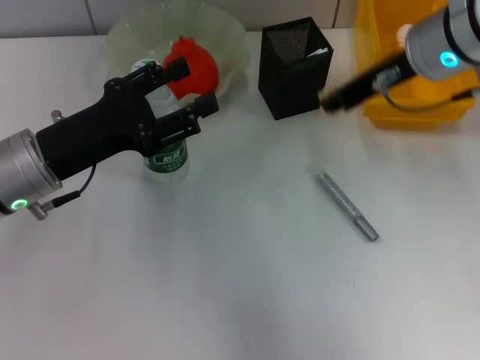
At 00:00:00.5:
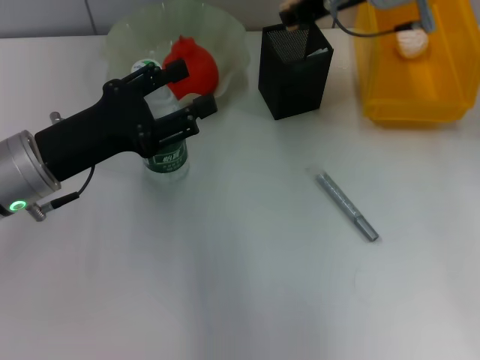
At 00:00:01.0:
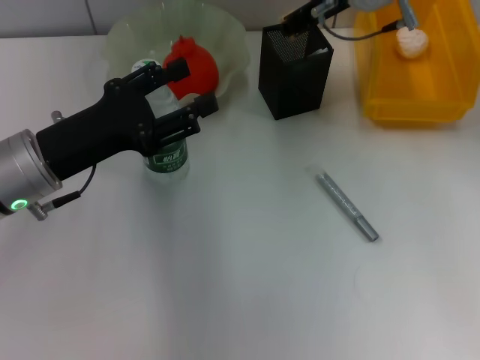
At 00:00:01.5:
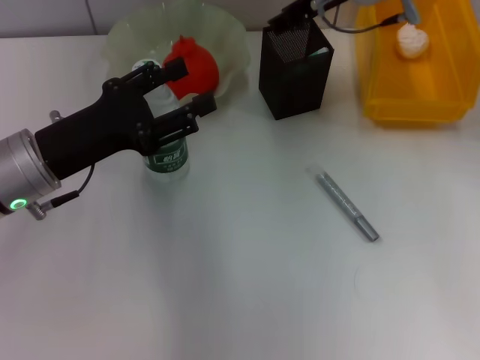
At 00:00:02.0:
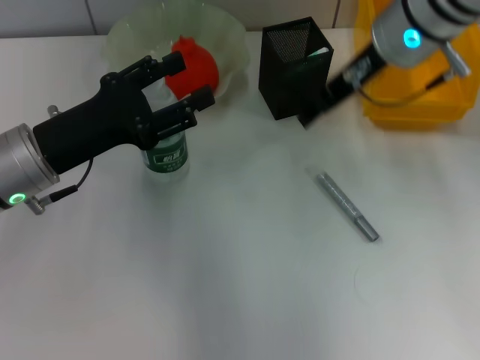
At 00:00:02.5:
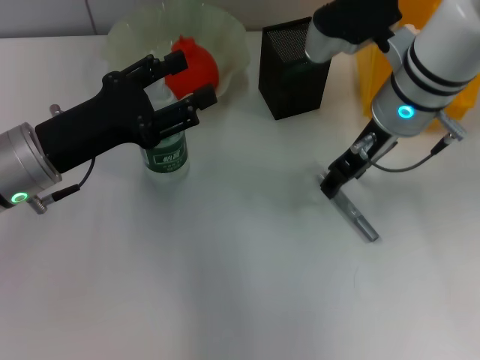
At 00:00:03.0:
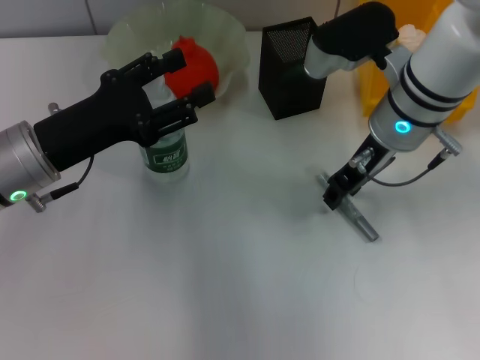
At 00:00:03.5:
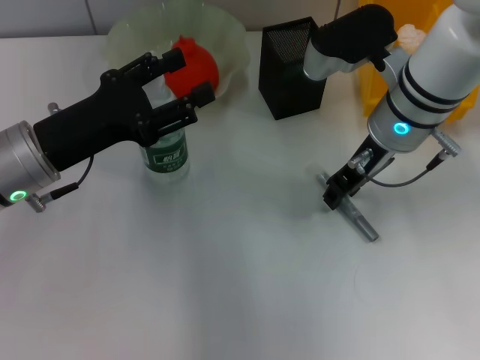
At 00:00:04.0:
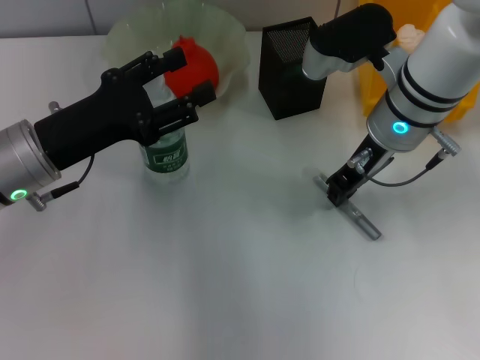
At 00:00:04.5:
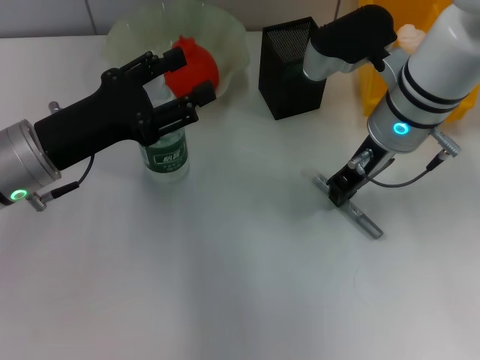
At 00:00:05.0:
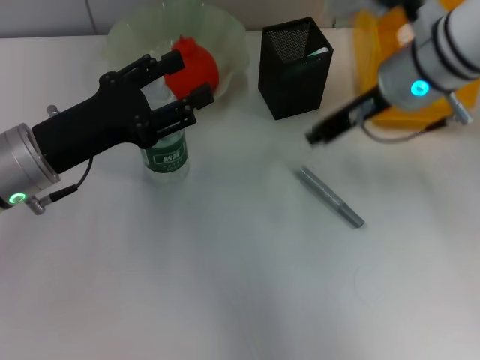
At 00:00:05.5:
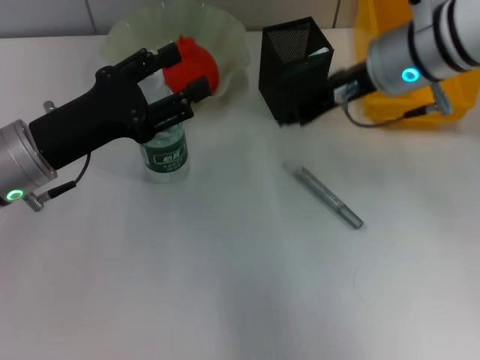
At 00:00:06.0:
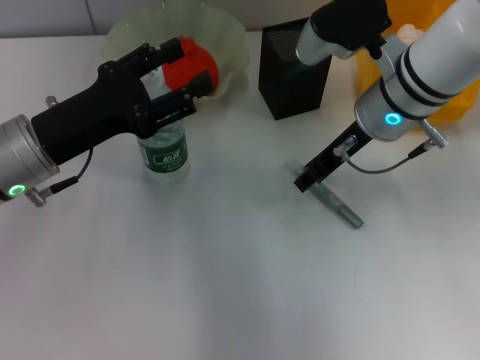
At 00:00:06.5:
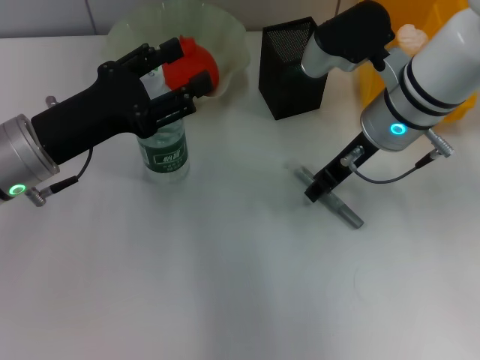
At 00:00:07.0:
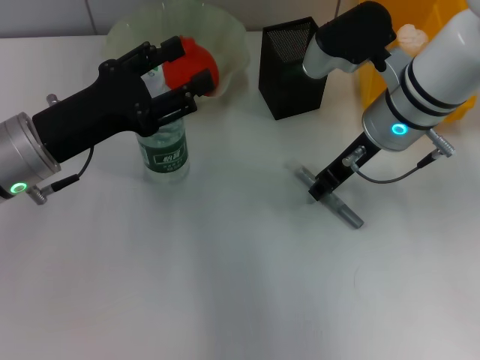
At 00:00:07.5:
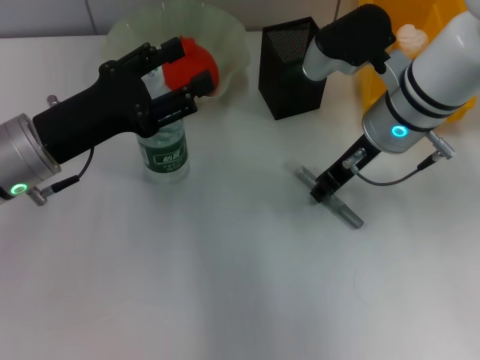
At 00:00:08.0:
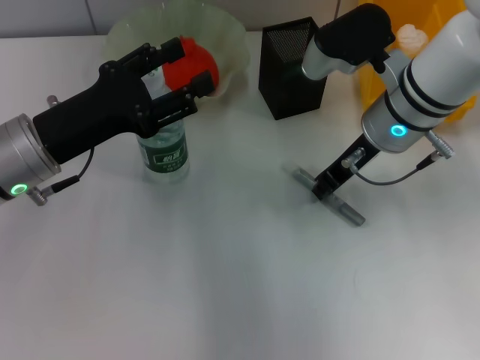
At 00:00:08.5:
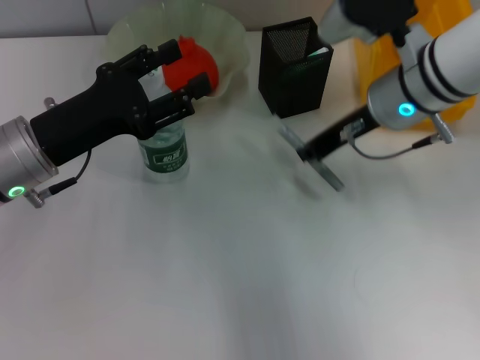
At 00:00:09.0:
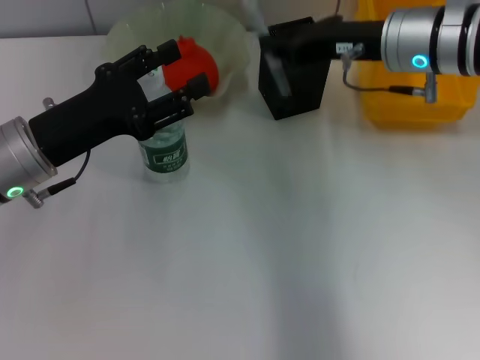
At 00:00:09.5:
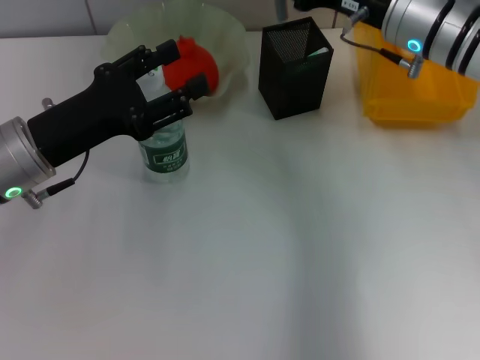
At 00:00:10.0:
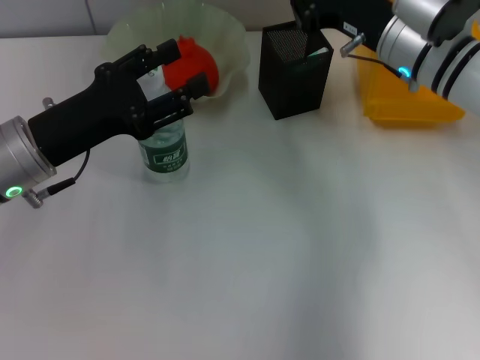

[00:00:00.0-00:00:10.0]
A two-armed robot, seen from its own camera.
Step, 00:00:00.0 to 00:00:01.0: Put the eraser into the pen holder with the right hand.
Step, 00:00:01.5 to 00:00:08.0: Grab the gray glue with the right hand.
00:00:00.0 to 00:00:02.0: The right gripper opens up.
00:00:02.0 to 00:00:04.0: The right gripper travels downward by about 5 cm, and closes up.
00:00:06.0 to 00:00:08.0: The right gripper closes.

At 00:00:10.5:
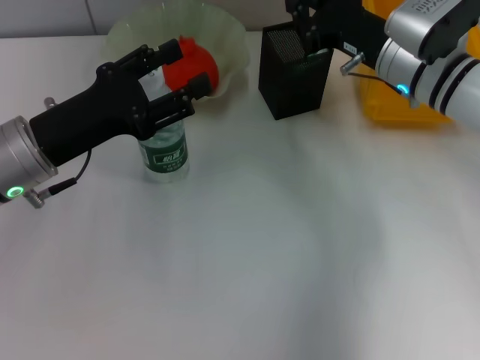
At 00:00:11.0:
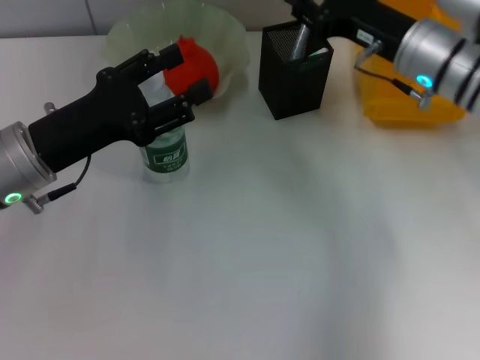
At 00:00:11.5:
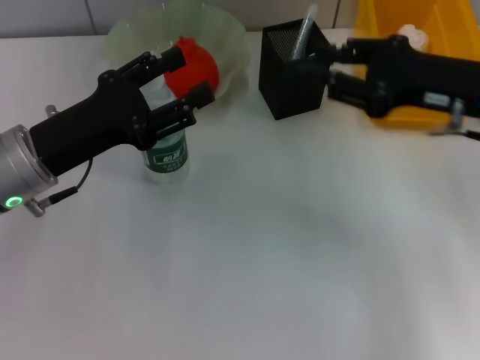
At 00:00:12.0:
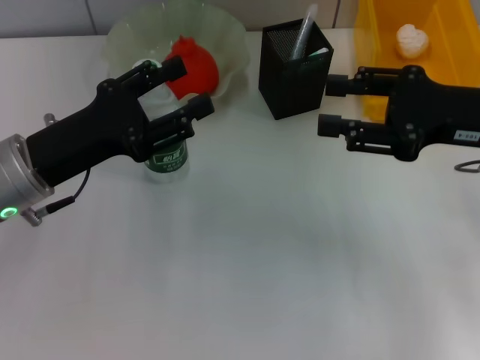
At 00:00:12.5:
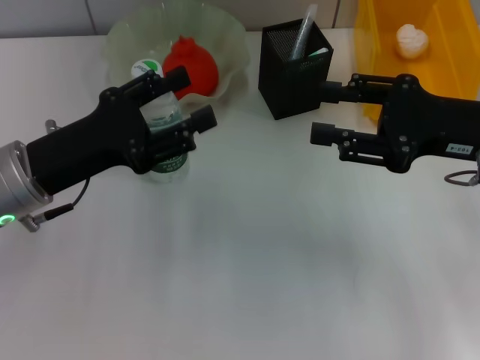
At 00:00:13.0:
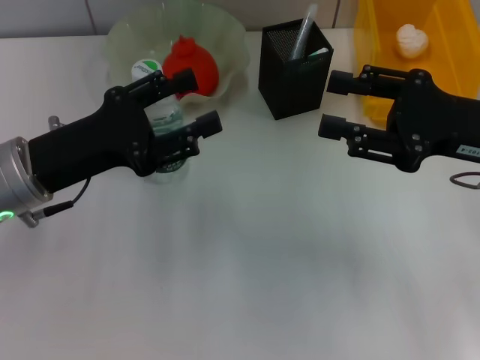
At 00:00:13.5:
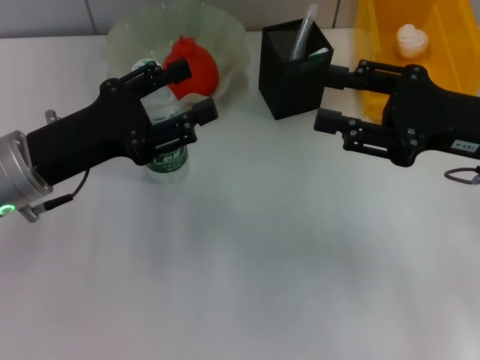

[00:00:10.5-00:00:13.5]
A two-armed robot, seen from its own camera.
00:00:10.5 to 00:00:12.0: The right gripper moves backward, to the right and upward, about 15 cm, and opens its fingers.
00:00:12.0 to 00:00:13.5: The grippers move only a little.

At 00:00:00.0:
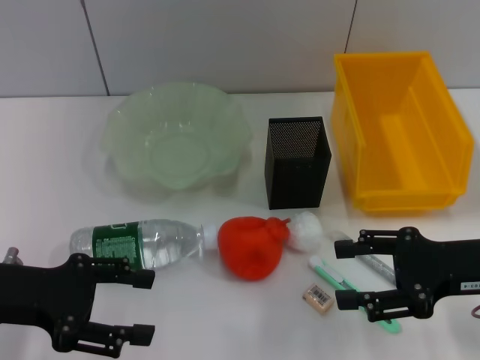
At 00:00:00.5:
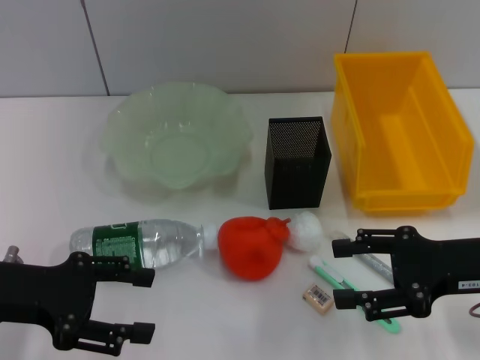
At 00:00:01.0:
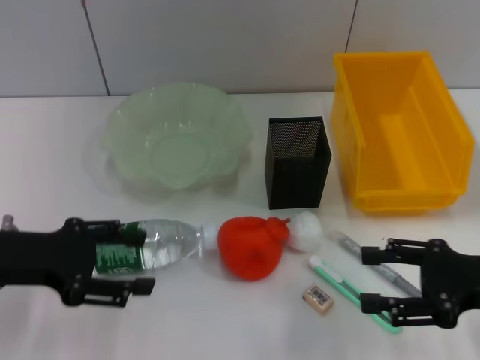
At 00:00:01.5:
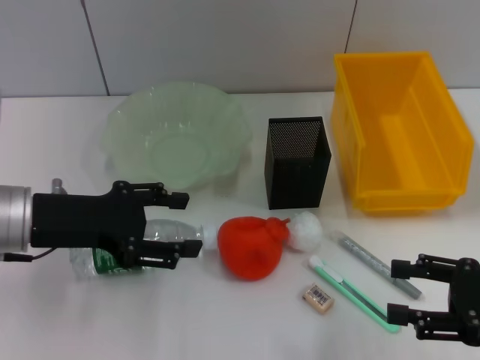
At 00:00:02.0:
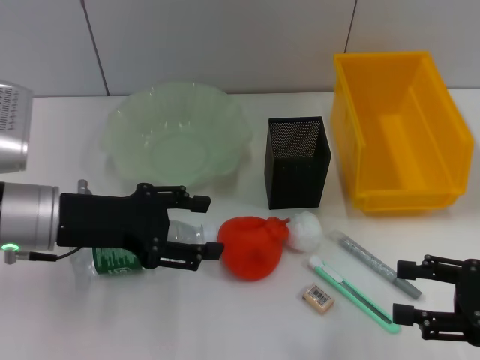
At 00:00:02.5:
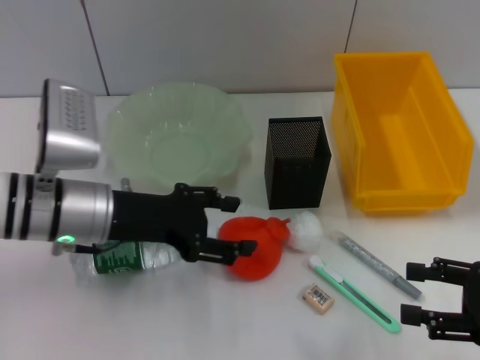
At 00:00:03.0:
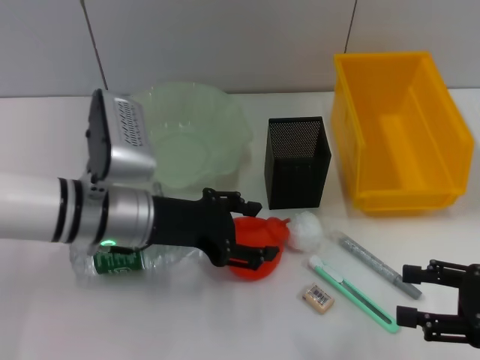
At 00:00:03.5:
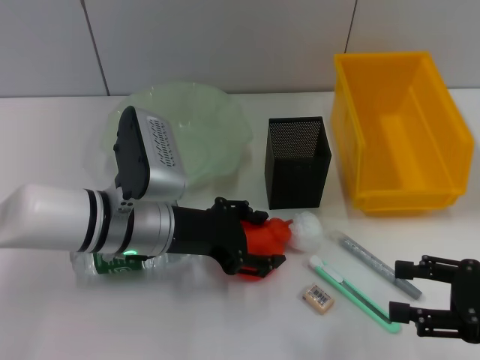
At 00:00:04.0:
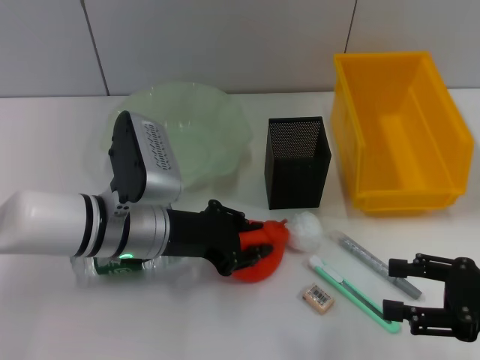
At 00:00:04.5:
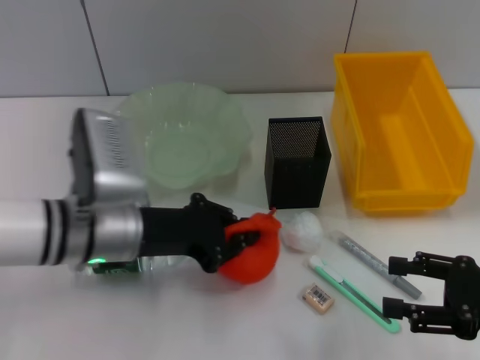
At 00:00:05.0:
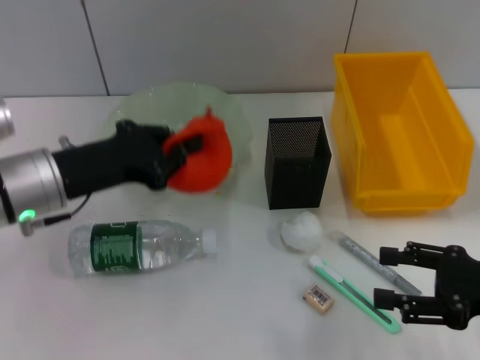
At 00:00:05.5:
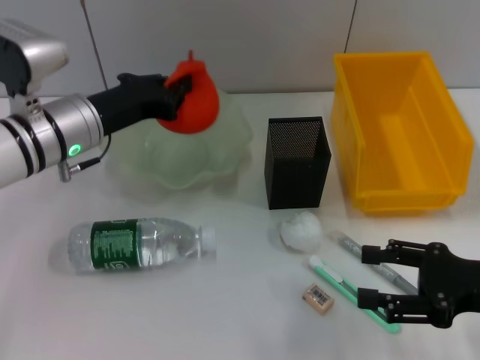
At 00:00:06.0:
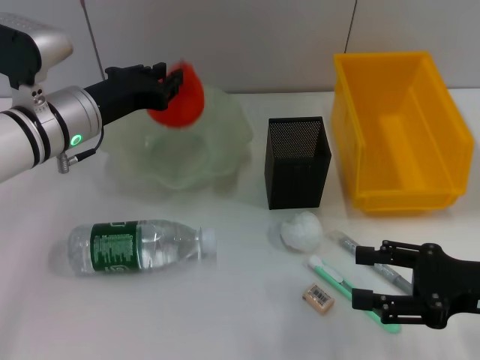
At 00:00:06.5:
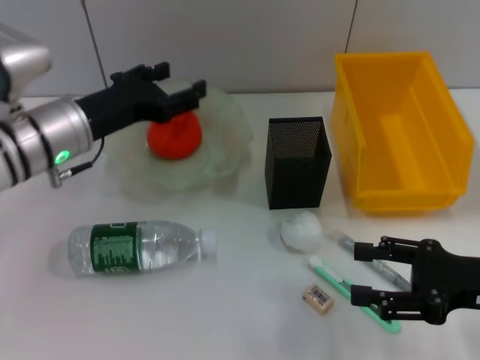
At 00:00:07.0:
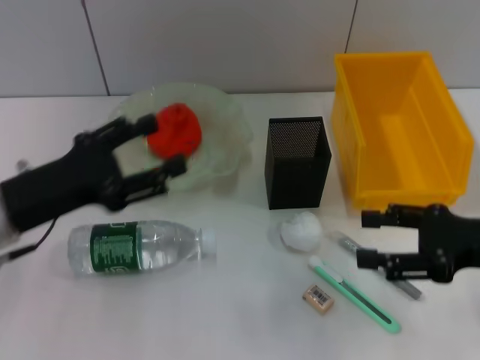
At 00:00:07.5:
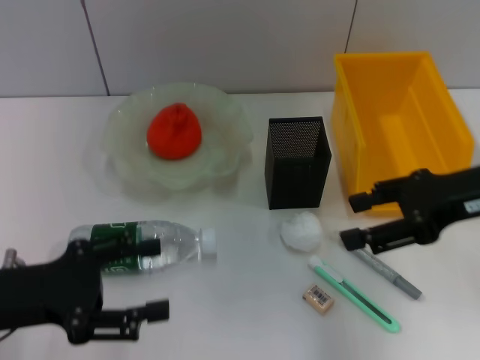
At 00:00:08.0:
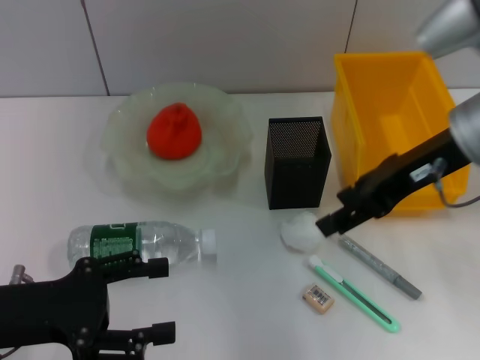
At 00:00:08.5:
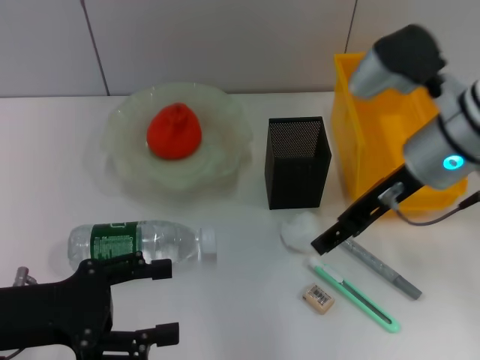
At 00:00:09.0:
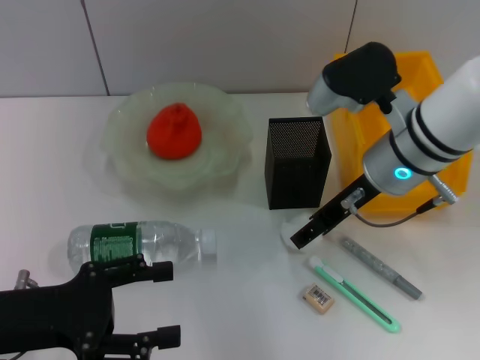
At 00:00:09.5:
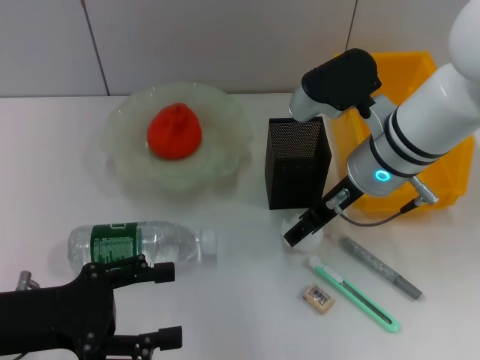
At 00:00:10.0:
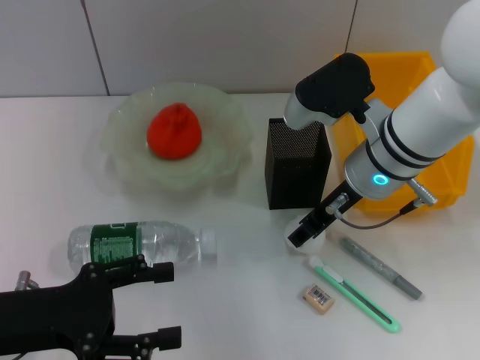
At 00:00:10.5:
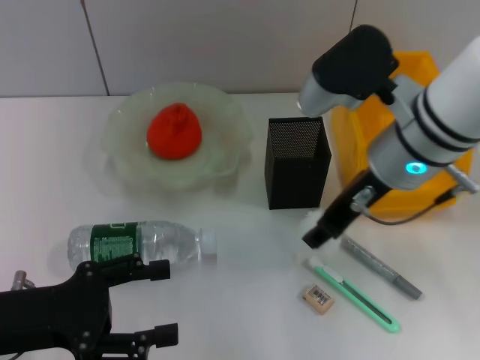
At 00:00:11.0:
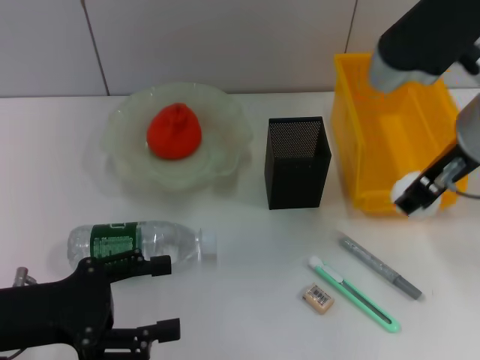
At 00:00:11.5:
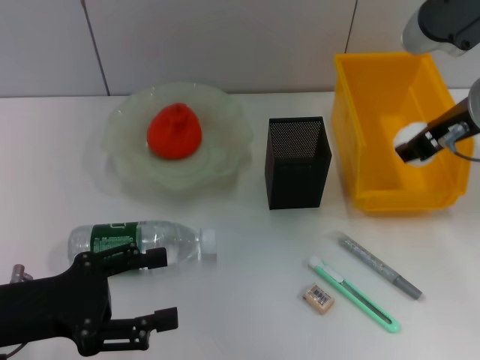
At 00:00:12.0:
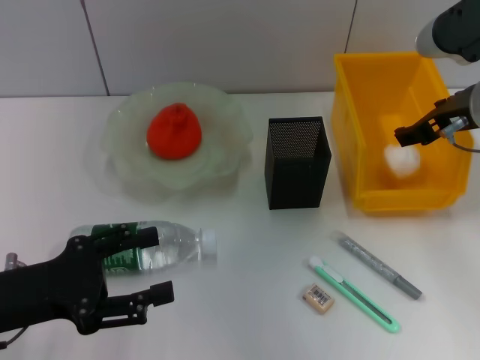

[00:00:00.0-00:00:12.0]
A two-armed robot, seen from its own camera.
Step, 00:00:00.0 to 00:00:04.0: Grab the orange with the left hand.
Step, 00:00:04.5 to 00:00:06.0: Place the orange into the fruit bowl with the left hand.
Step, 00:00:06.5 to 00:00:10.0: Grab the paper ball with the right hand.
00:00:00.0 to 00:00:02.0: The left gripper heads to the right and forward, covering approximately 10 cm. The right gripper is displaced to the right by roughly 5 cm.
00:00:02.0 to 00:00:04.0: The left gripper is displaced to the right by about 10 cm, and closes.
00:00:04.0 to 00:00:06.0: The left gripper shifts about 10 cm forward and to the left, and closes.
00:00:06.0 to 00:00:08.0: The left gripper moves backward and to the left, about 20 cm, and opens up; the right gripper goes approximately 20 cm upward, forward and to the left.
00:00:08.0 to 00:00:10.0: The right gripper heads downward and to the left, covering roughly 10 cm.
00:00:10.0 to 00:00:12.0: The right gripper travels to the right and upward by some 10 cm.
